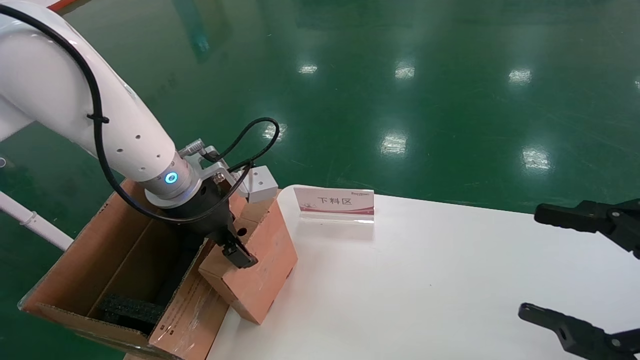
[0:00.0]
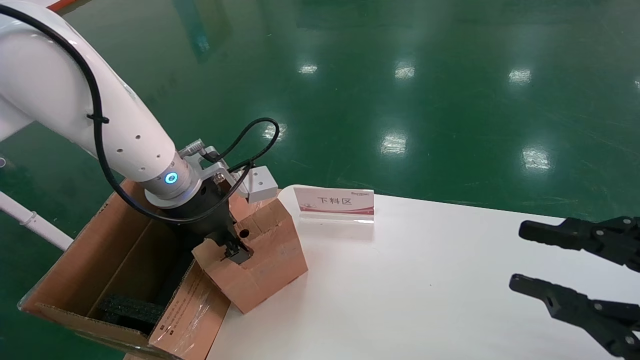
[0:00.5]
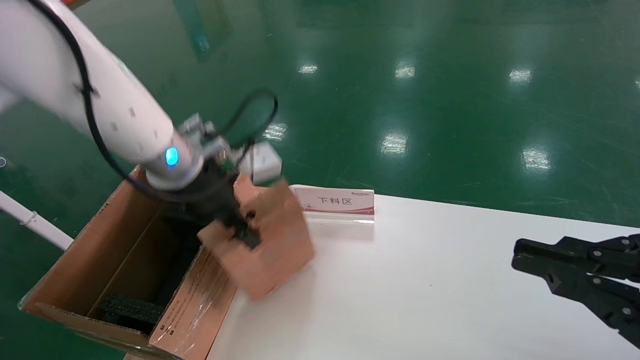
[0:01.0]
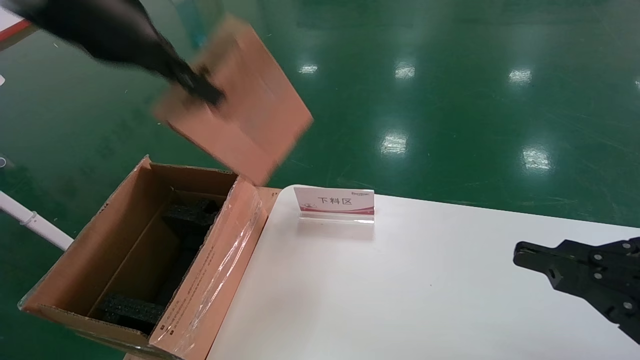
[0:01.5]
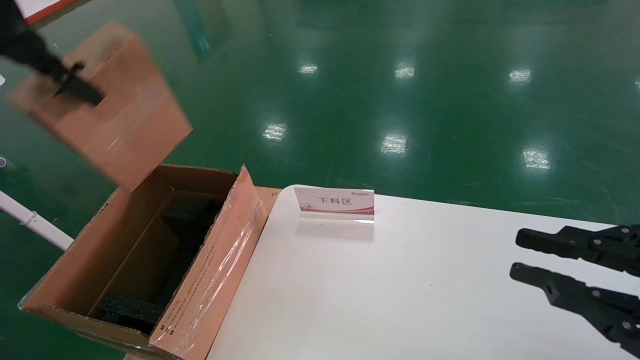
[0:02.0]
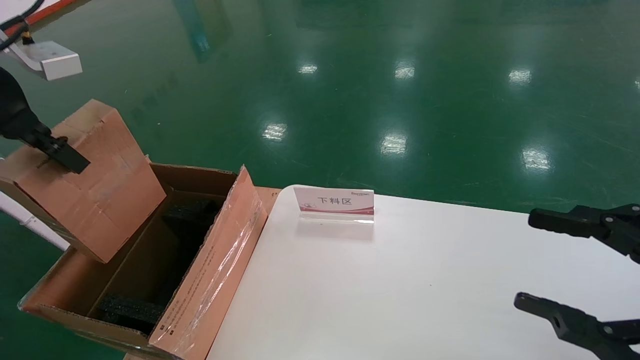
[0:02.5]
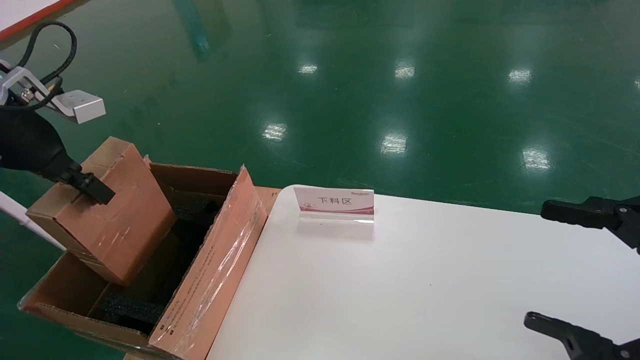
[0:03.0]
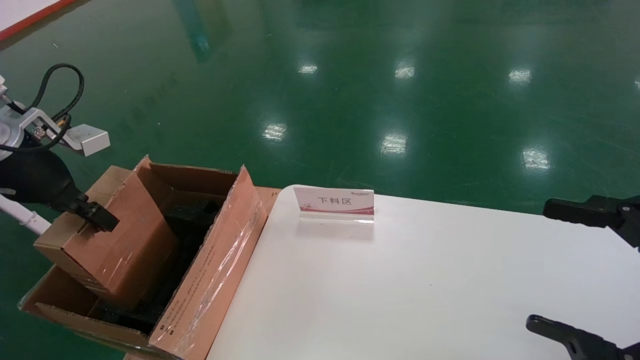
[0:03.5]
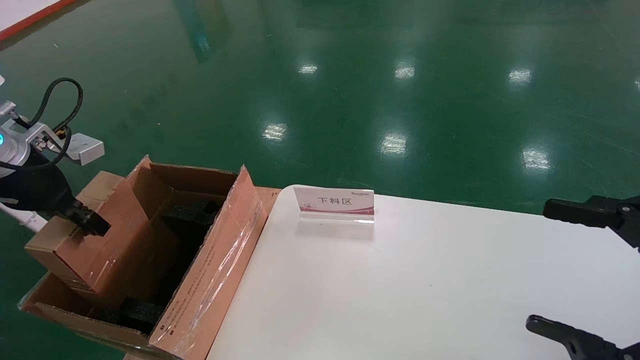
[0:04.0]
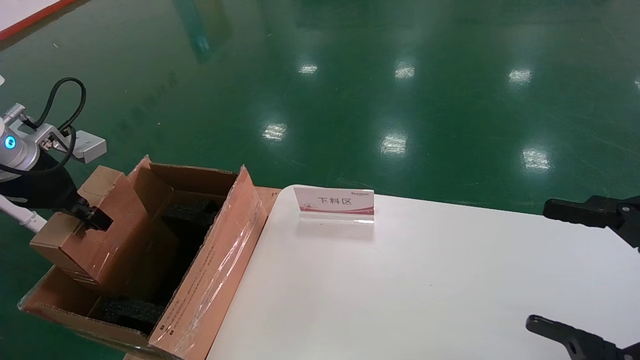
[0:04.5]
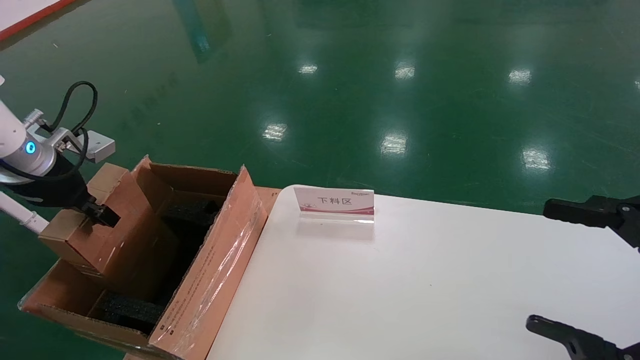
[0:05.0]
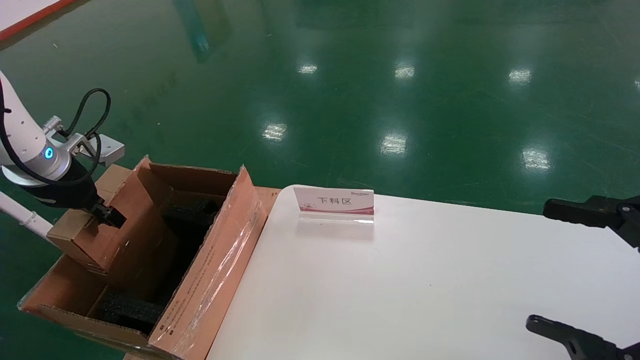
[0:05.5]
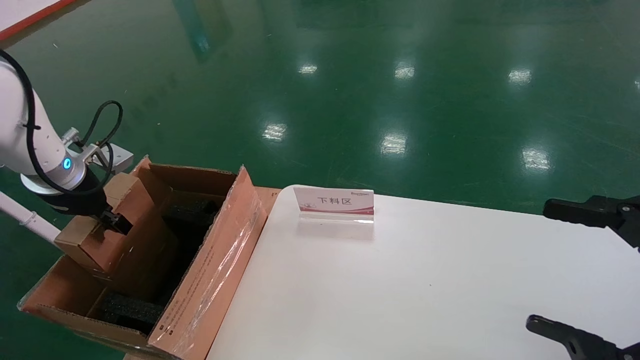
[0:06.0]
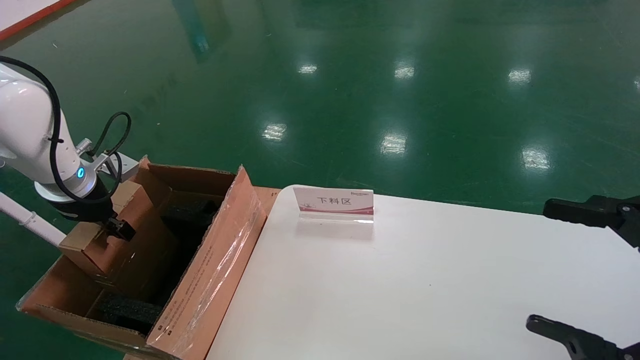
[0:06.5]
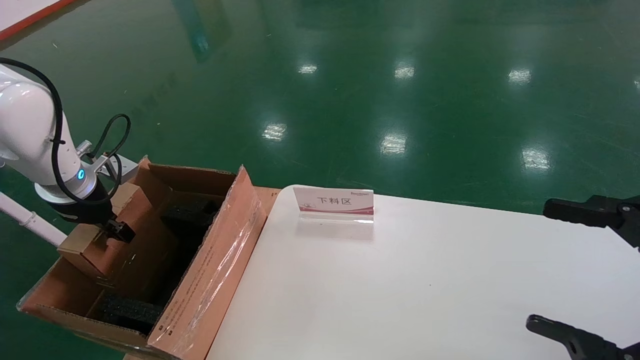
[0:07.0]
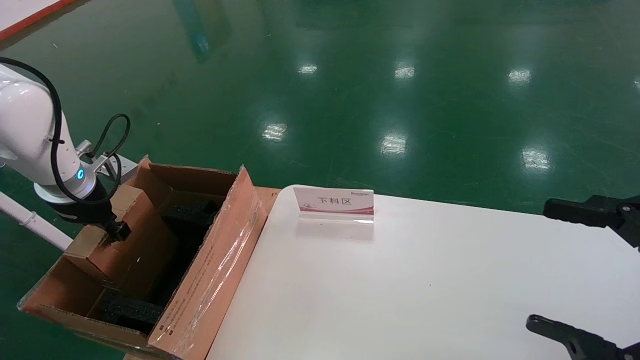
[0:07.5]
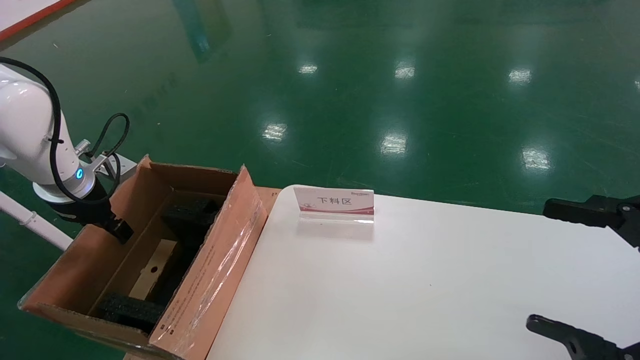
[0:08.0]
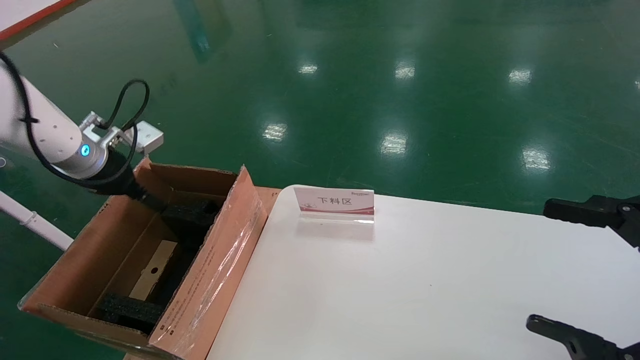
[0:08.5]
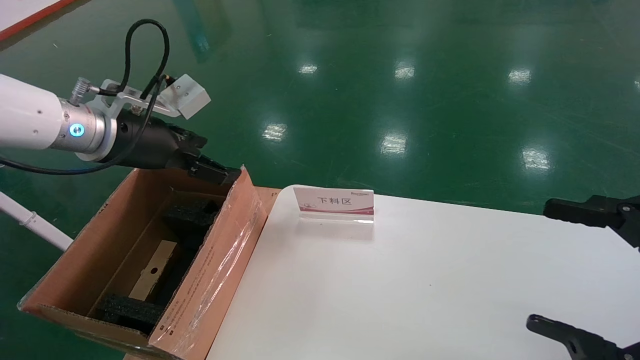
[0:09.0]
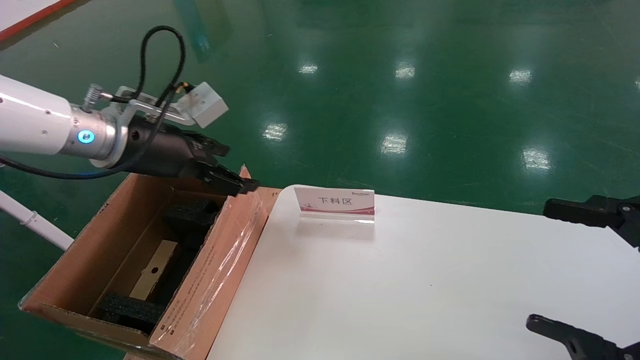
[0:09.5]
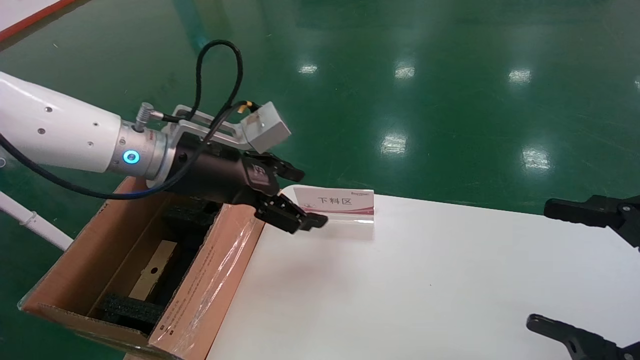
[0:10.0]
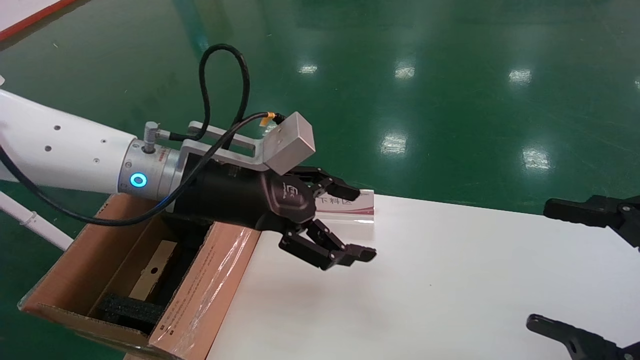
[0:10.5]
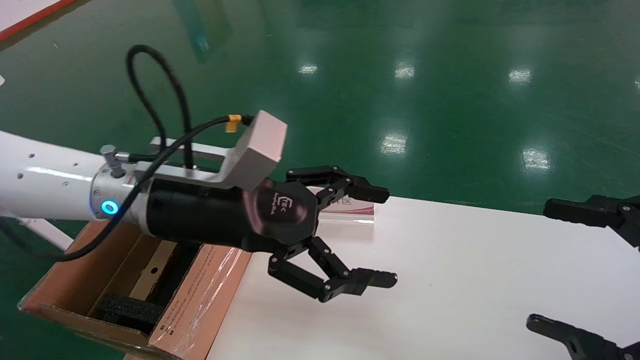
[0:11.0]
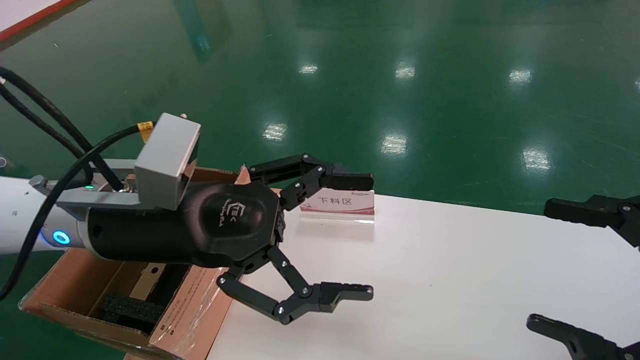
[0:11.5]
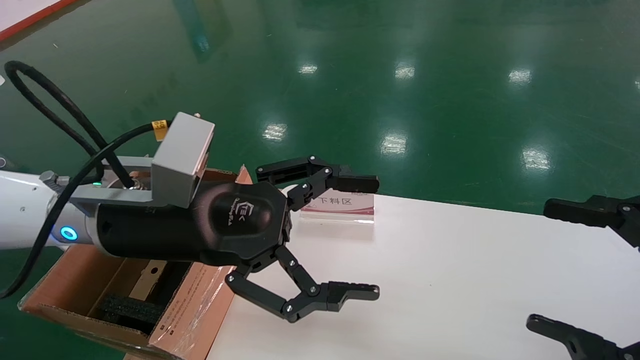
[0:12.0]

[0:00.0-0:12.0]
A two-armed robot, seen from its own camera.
Task of the whole recording: pick up the small cardboard box and load it into the large cardboard box.
Step, 0:00.5 to 0:07.5: Place the mouse and power cord box into the case.
0:00.0 to 0:02.0: The right gripper closes its fingers. Meanwhile the left gripper is displaced upward, to the left and backward by about 25 cm, and closes its fingers.
0:02.0 to 0:04.0: The left gripper goes roughly 20 cm downward and to the left. Meanwhile the right gripper opens its fingers.
0:04.0 to 0:06.0: The left gripper moves forward, some 5 cm.
0:06.0 to 0:08.0: The left gripper opens.
0:08.0 to 0:10.0: The left gripper is displaced to the right by about 20 cm, and opens.
0:10.0 to 0:12.0: The left gripper goes roughly 10 cm backward.
